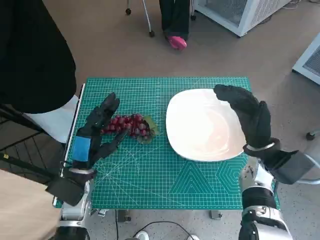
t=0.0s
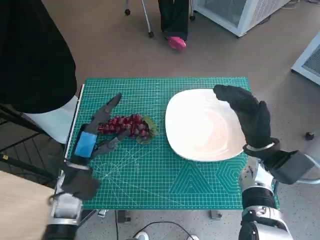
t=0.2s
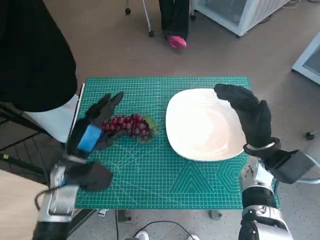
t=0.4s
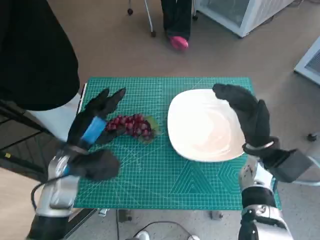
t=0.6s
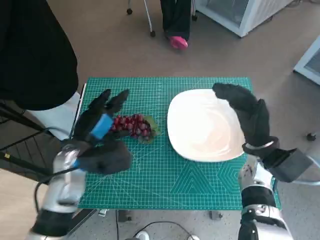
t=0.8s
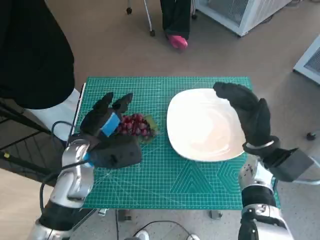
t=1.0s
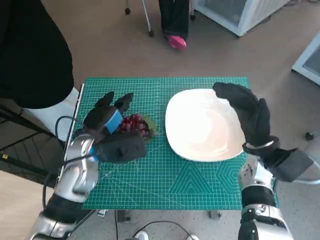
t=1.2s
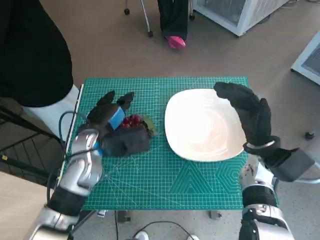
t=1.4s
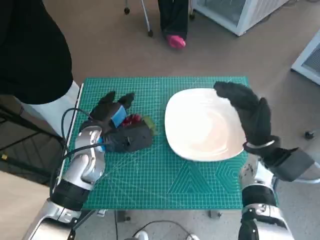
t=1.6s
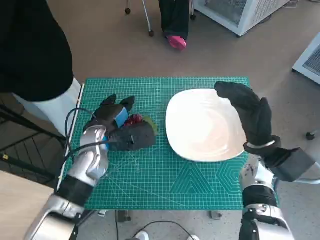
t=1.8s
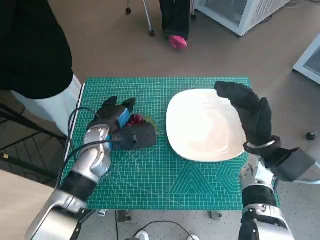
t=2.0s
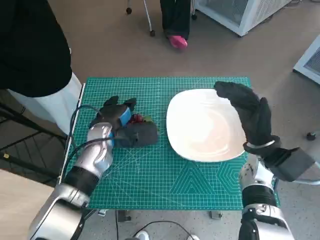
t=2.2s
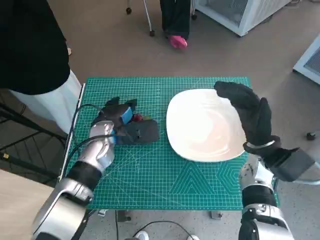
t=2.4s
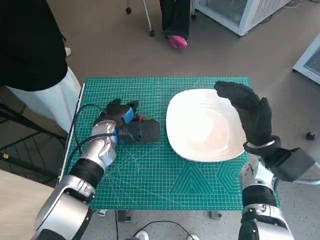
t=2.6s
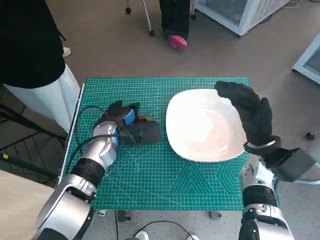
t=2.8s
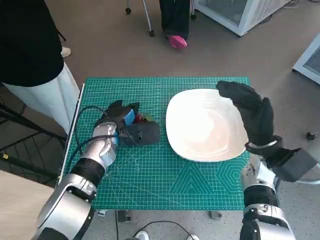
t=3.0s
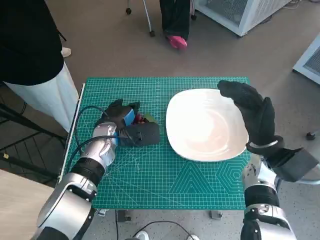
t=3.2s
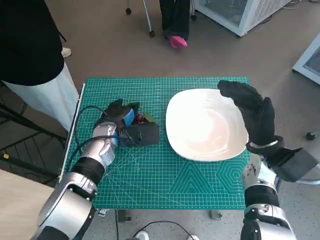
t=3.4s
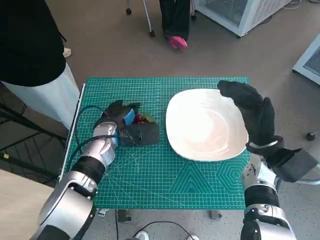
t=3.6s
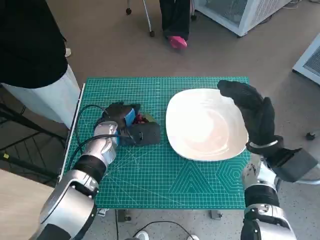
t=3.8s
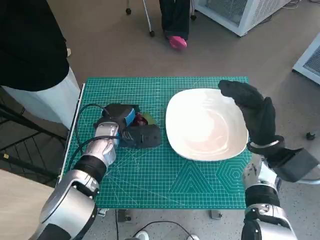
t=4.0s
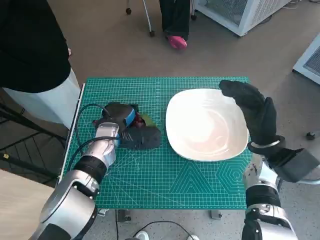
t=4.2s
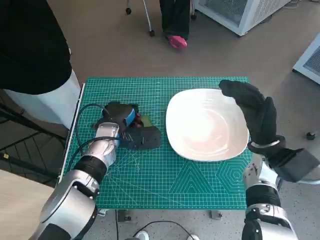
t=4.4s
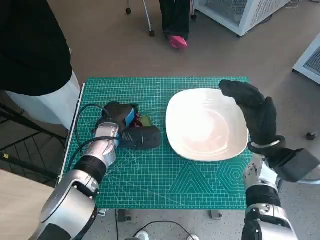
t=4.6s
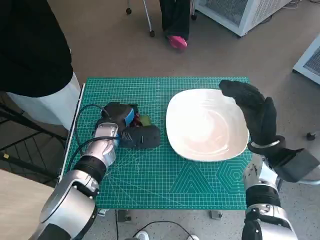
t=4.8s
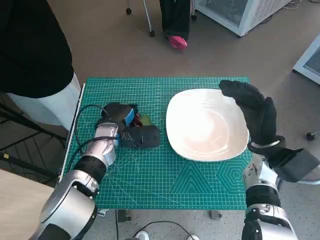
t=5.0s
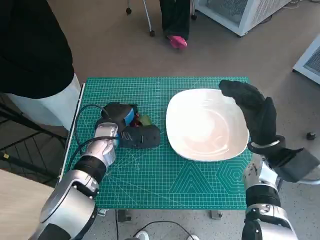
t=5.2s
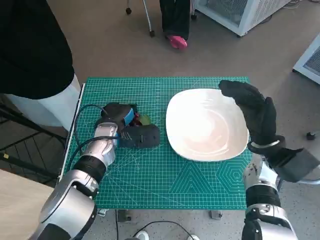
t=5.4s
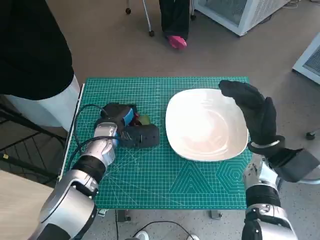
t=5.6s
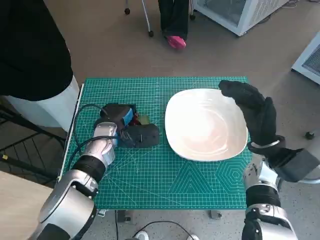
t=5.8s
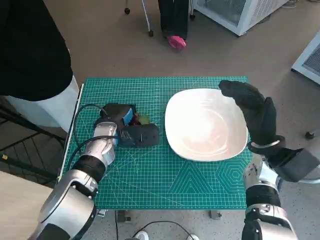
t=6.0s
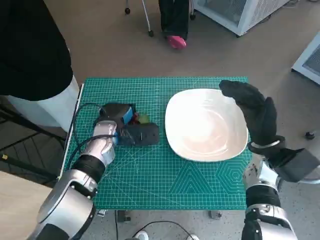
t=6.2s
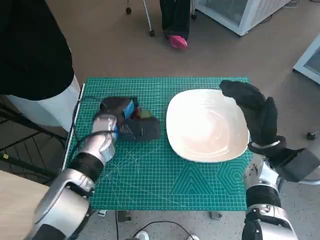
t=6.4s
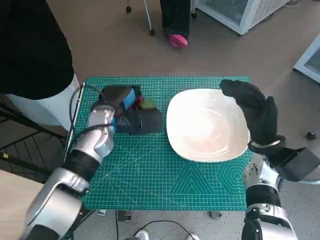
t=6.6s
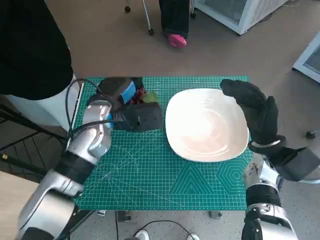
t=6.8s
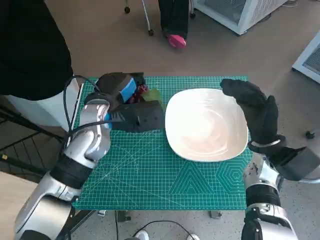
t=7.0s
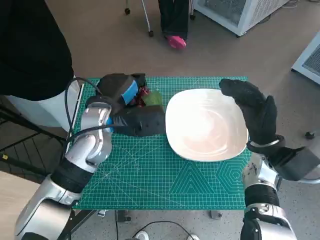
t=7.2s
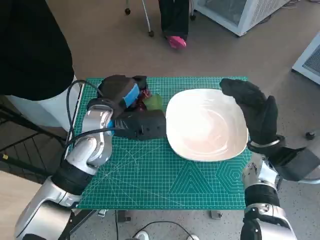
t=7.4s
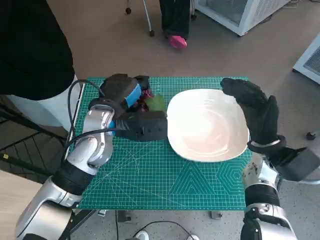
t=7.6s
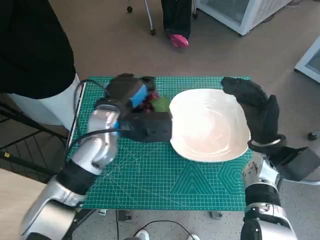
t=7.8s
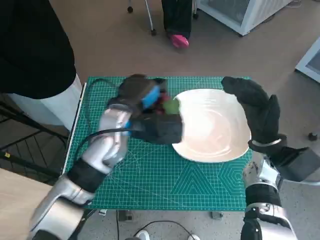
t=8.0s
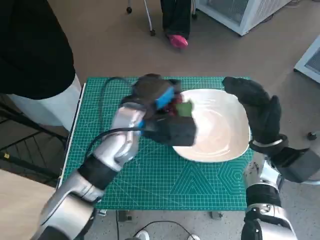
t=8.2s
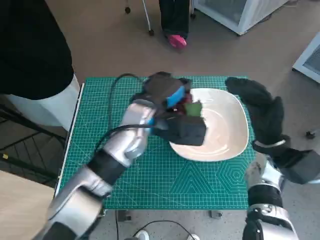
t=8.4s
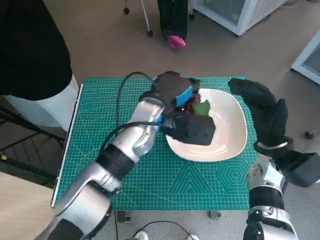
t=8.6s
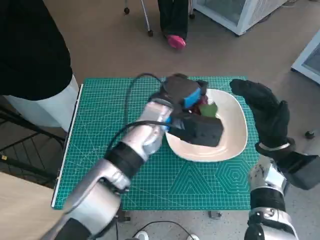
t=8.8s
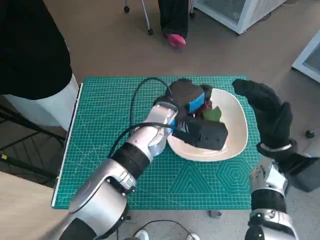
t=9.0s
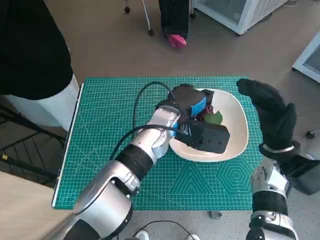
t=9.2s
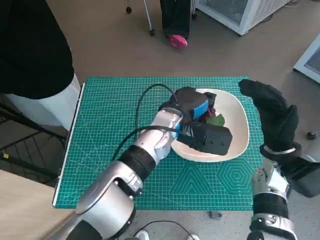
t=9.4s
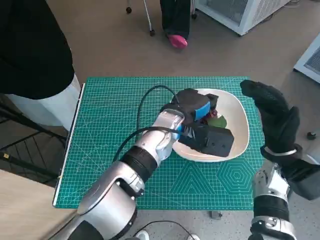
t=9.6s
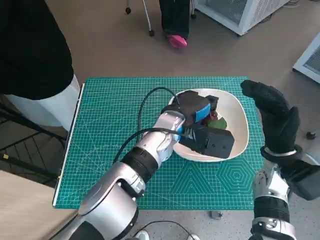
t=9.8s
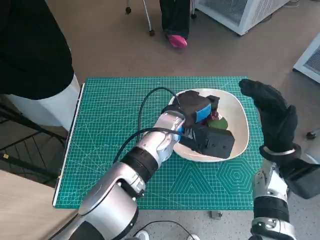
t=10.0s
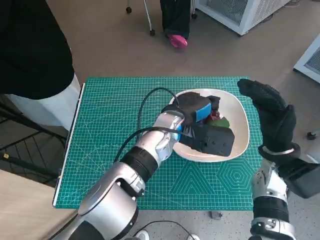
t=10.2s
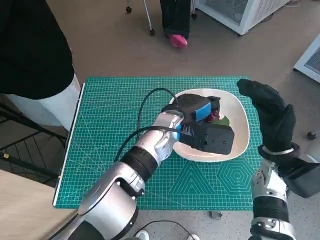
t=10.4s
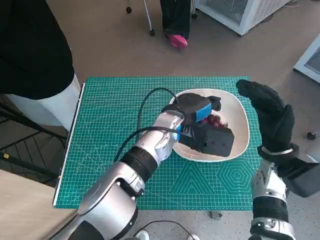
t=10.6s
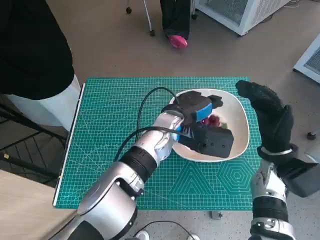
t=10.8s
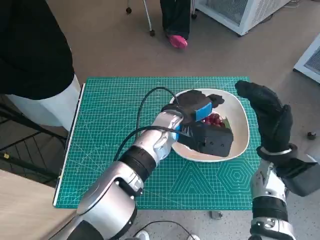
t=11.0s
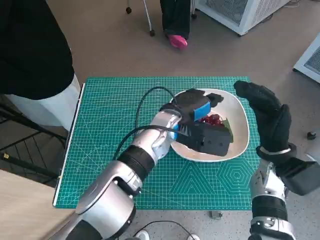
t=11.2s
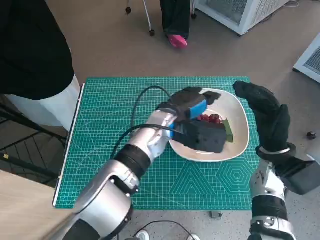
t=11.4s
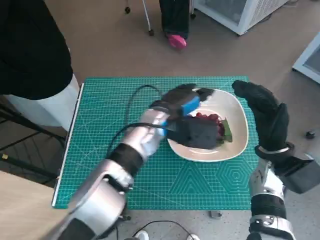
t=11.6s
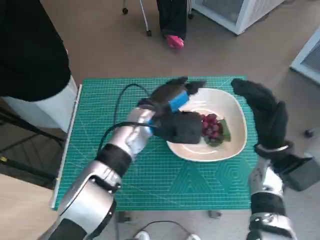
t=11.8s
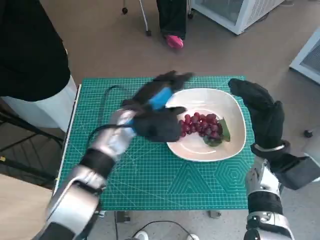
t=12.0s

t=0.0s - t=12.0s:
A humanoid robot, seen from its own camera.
Task of the whole recording: Pick up the grapes and put them on the plate.
Step, t=0.0s - t=6.0s: Grasp the grapes with left hand.
Step, t=6.2s - t=11.0s: Place the grapes in the plate with left hand.
t=0.0s - t=1.6s: The left hand moves forward and upward, approximately 10 cm.
t=1.6s - t=3.0s: The left hand changes place by some 5 cm.
t=3.0s - t=4.4s: There are only small adjustments of the hands.
t=4.4s - t=6.0s: Both hands stay about where they are.
t=6.0s - t=7.6s: The left hand heads upward, covering approximately 10 cm.
t=7.6s - t=9.0s: The left hand moves to the right, approximately 10 cm.
t=9.0s - t=10.4s: The hands make only small movements.
t=10.4s - t=12.0s: The left hand moves to the left, roughly 10 cm.

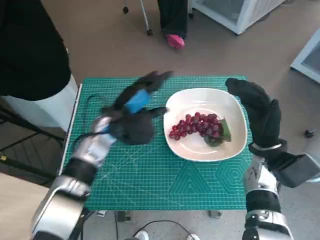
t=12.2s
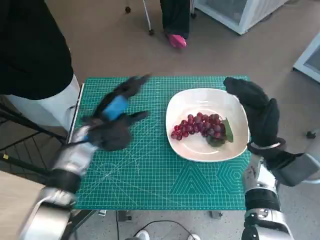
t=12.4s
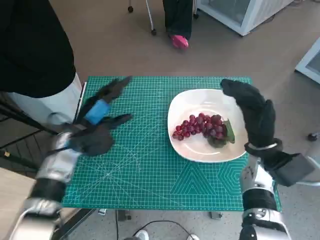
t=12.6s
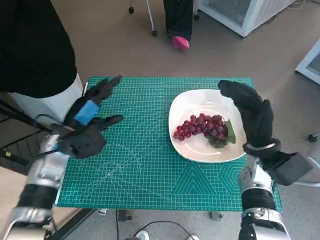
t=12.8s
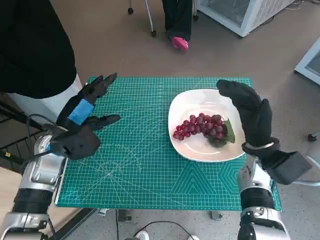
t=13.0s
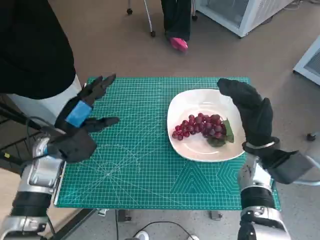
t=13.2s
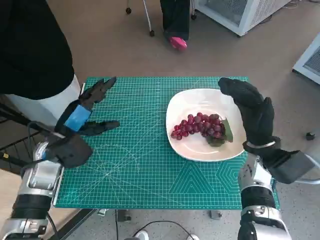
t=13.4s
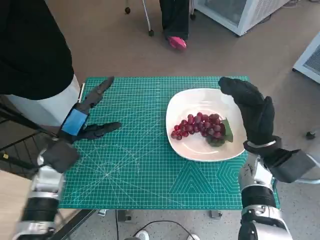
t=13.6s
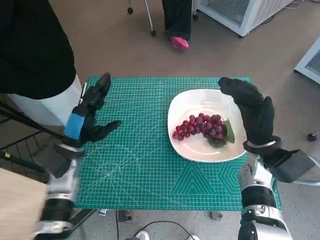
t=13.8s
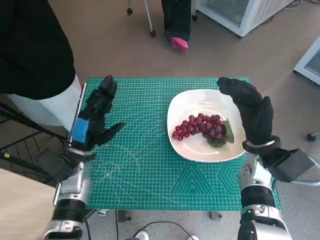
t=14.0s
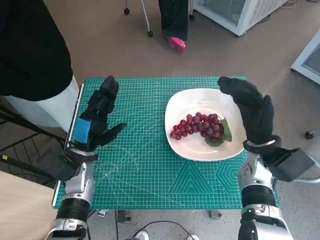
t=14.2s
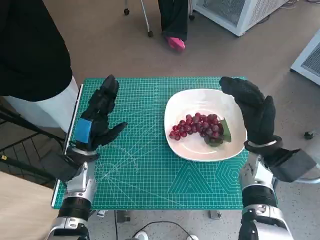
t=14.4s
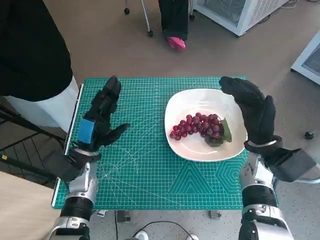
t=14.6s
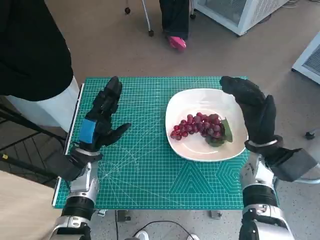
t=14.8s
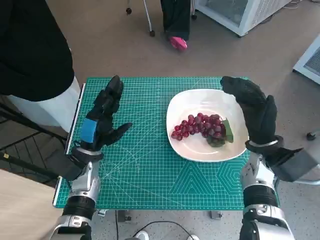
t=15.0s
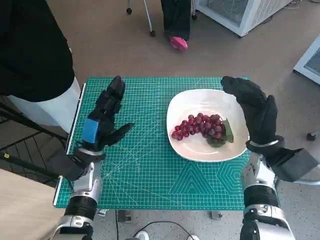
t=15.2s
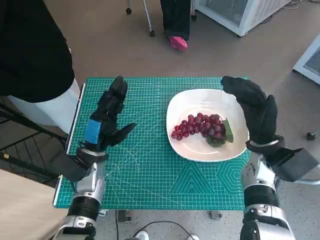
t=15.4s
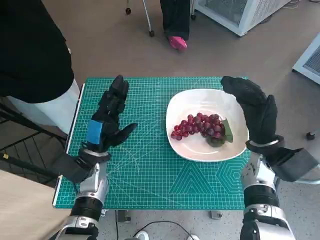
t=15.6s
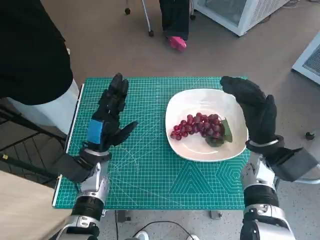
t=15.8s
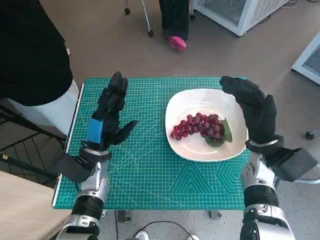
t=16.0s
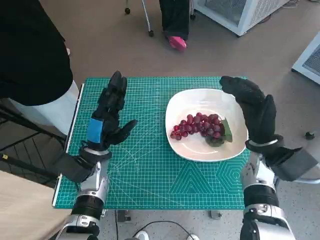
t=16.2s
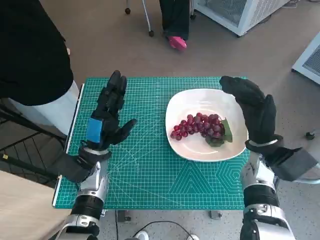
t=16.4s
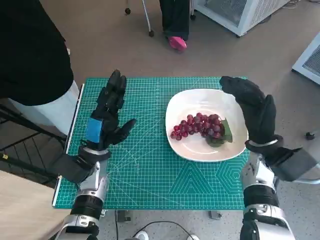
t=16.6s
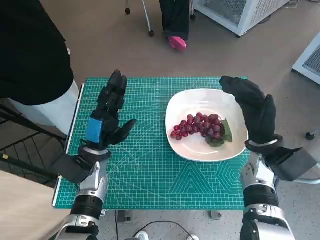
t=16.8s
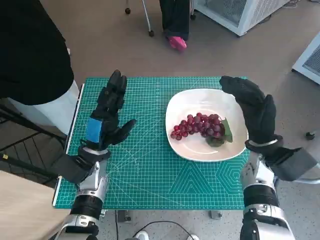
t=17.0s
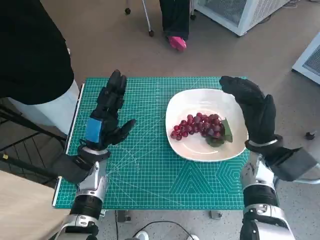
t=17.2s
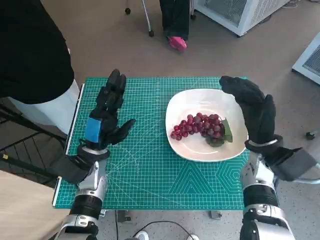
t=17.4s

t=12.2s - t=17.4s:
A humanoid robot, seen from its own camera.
Task of the whole recording: Pick up the grapes and put them on the plate.
t=12.2s - t=14.0s: The left hand travels to the left, backward and downward by some 10 cm.
t=14.0s - t=15.6s: The hands stay close to where they were, moving slightly.
t=15.6s - t=17.4s: Both hands stay put.
